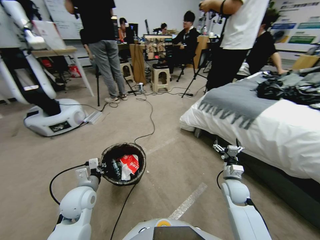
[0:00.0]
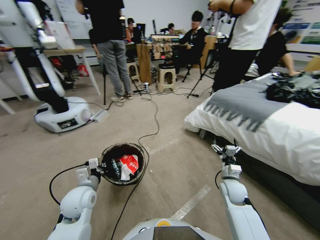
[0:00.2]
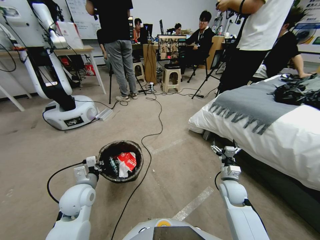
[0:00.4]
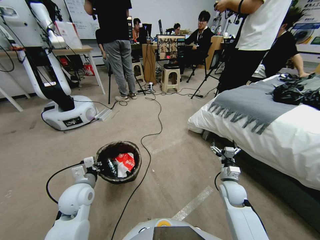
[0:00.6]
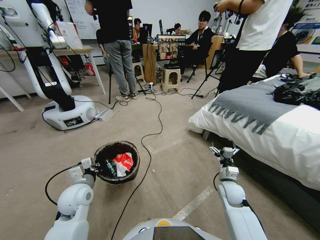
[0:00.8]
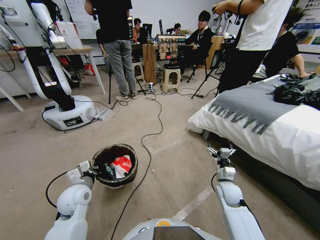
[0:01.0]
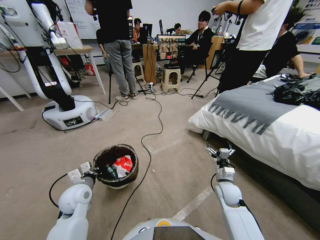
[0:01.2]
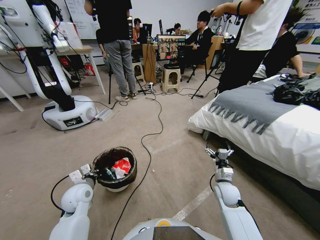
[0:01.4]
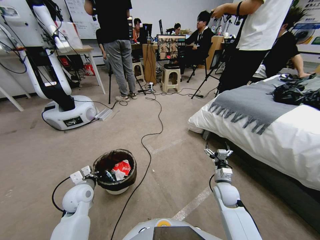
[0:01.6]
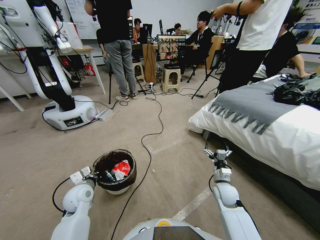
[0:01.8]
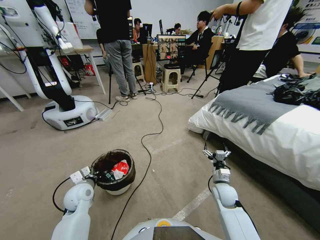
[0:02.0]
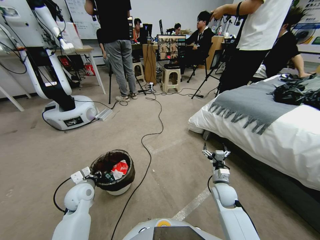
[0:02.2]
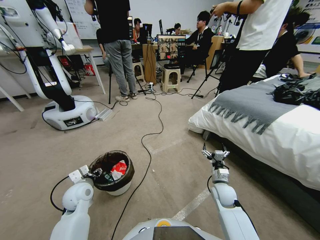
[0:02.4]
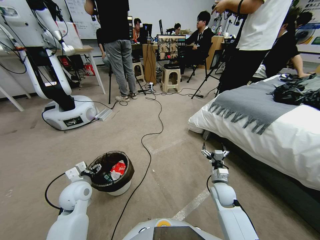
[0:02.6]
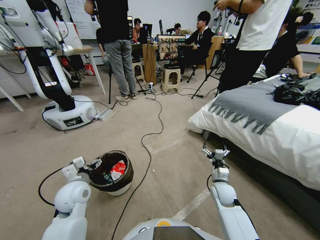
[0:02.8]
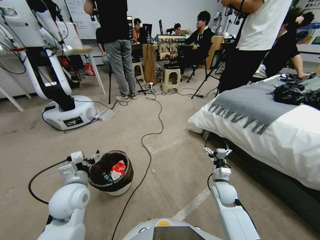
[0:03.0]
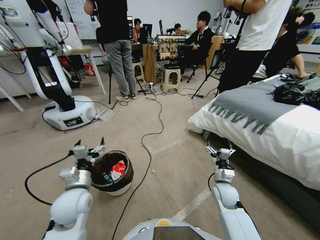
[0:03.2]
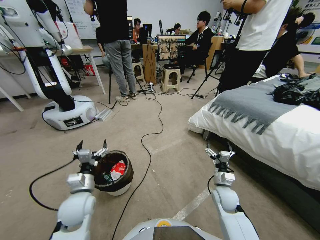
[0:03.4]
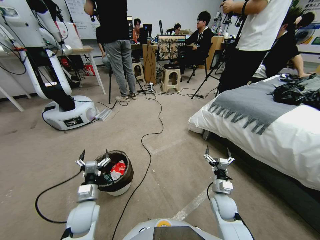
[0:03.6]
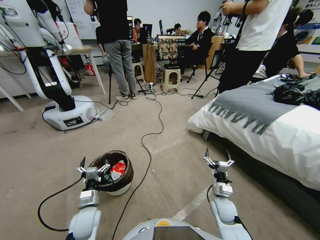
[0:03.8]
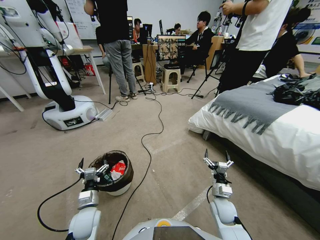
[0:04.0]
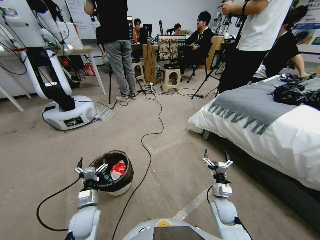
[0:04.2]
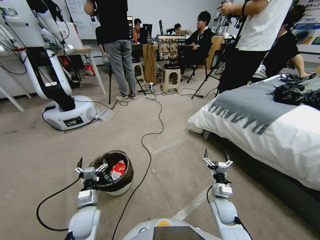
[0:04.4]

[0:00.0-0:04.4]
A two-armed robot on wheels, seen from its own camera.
Task of the whole recording: Pick up the trash bin, then pick up the garbage from the floor and place it into the trash bin.
0:00.0 to 0:01.4: The left gripper ends up roughly 5 cm from where it was.
0:01.4 to 0:03.0: The left gripper goes roughly 10 cm upward, and opens its fingers.
0:03.0 to 0:04.4: The right gripper travels backward by some 5 cm, while the left gripper goes some 15 cm downward.
